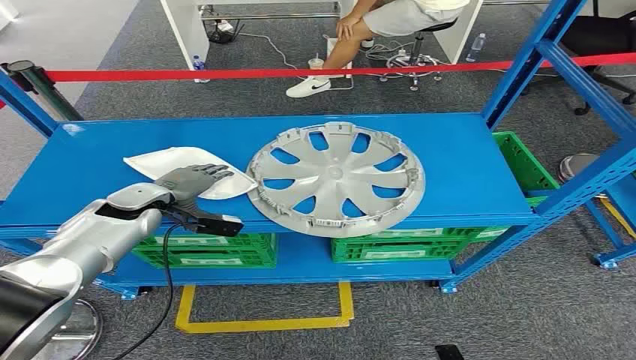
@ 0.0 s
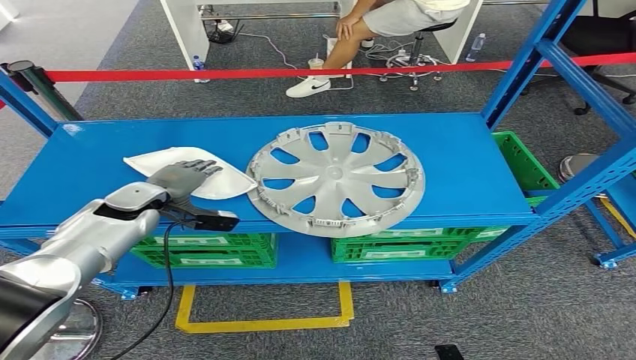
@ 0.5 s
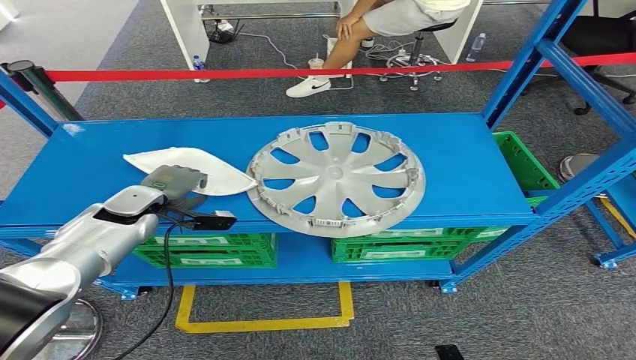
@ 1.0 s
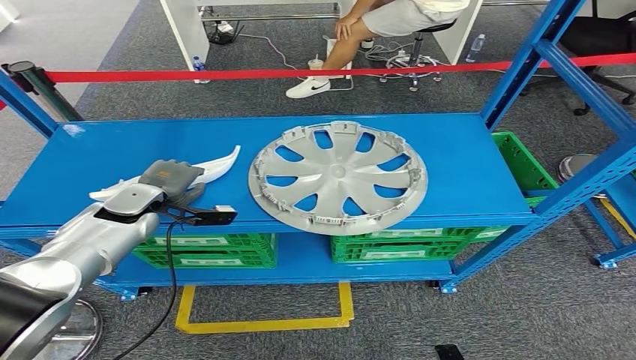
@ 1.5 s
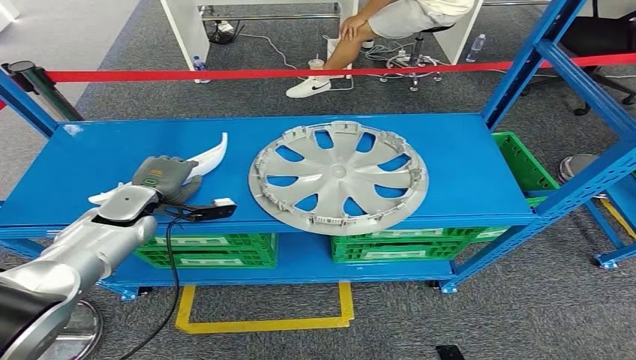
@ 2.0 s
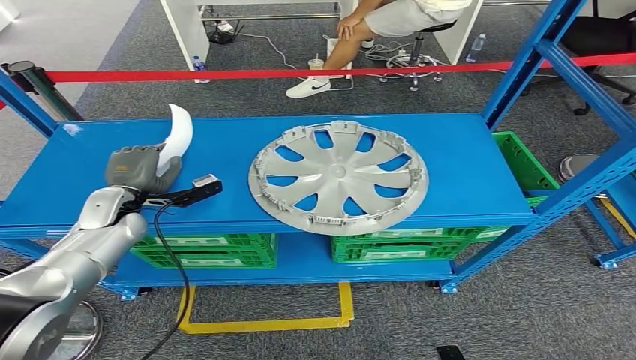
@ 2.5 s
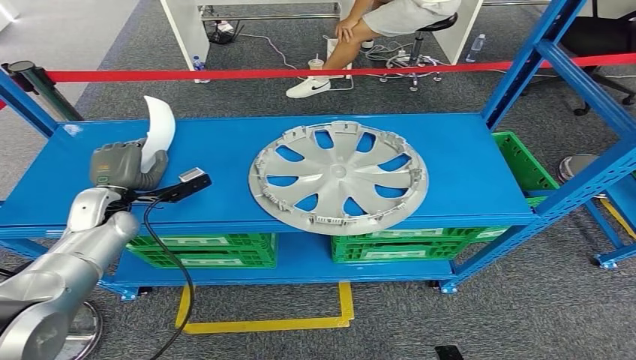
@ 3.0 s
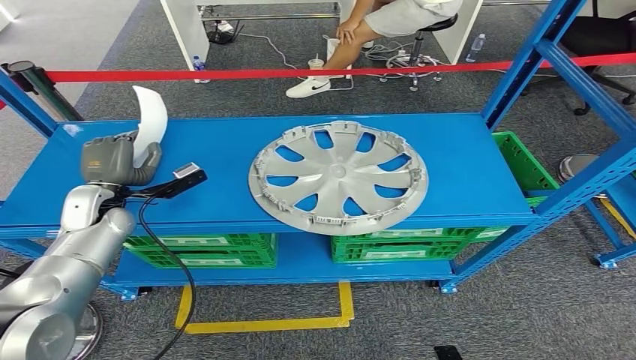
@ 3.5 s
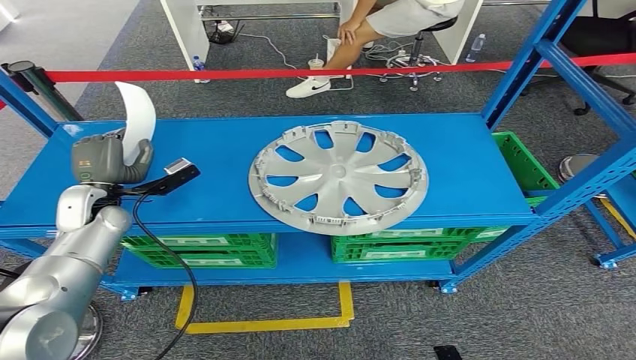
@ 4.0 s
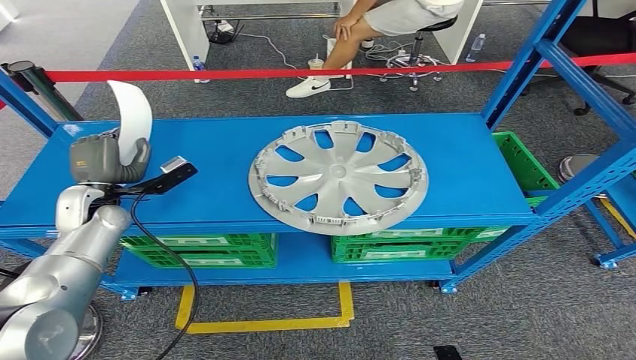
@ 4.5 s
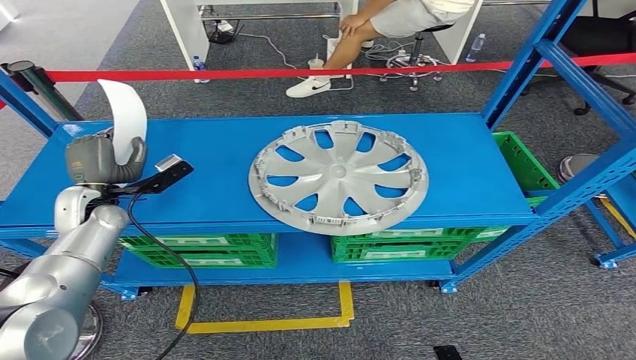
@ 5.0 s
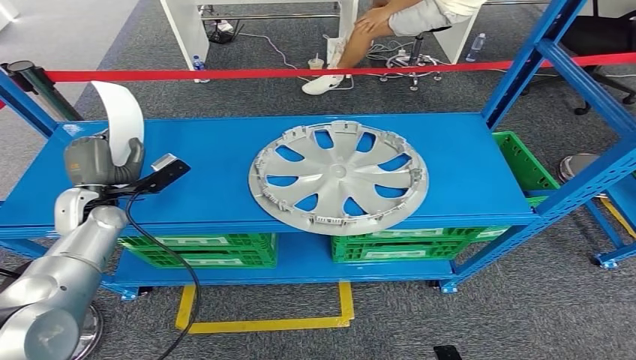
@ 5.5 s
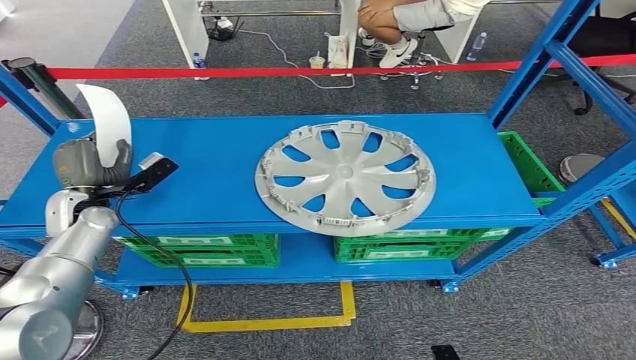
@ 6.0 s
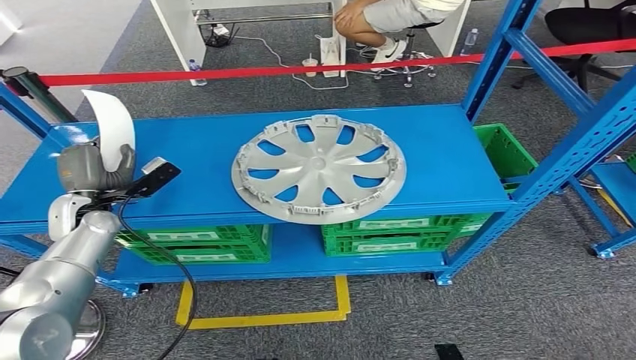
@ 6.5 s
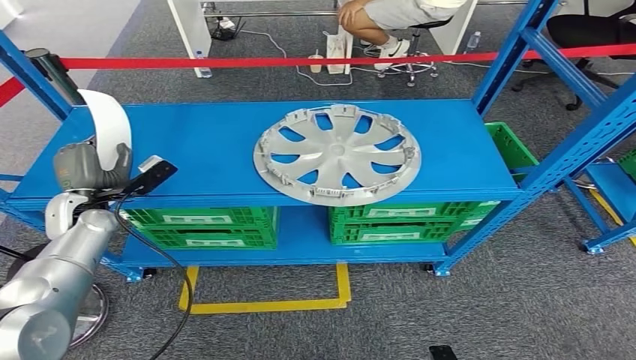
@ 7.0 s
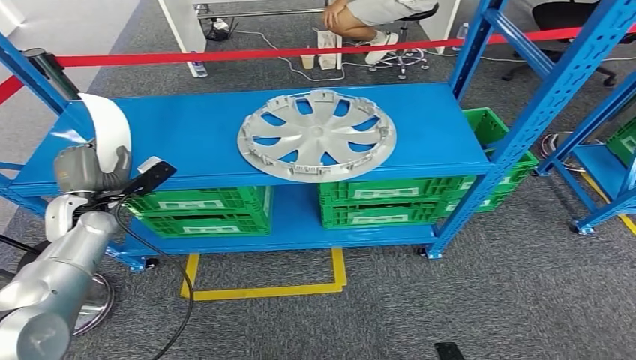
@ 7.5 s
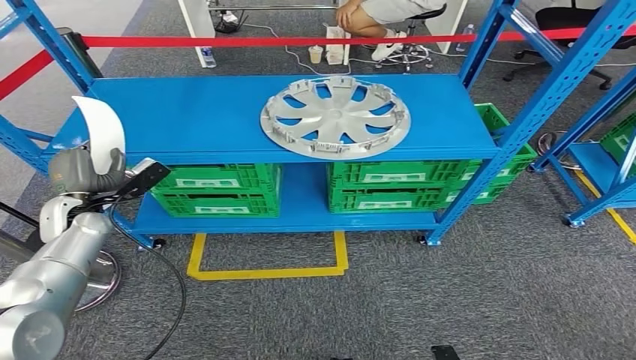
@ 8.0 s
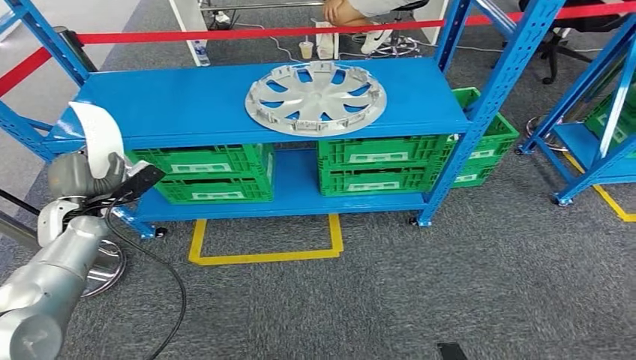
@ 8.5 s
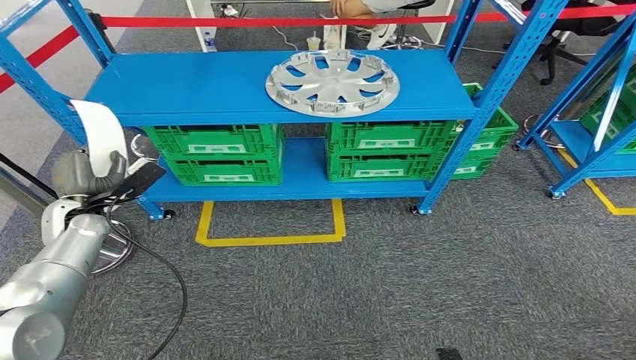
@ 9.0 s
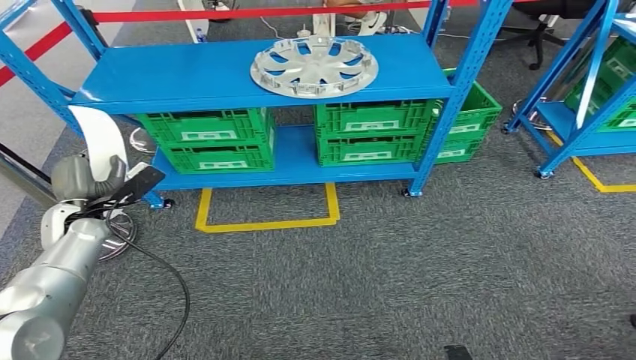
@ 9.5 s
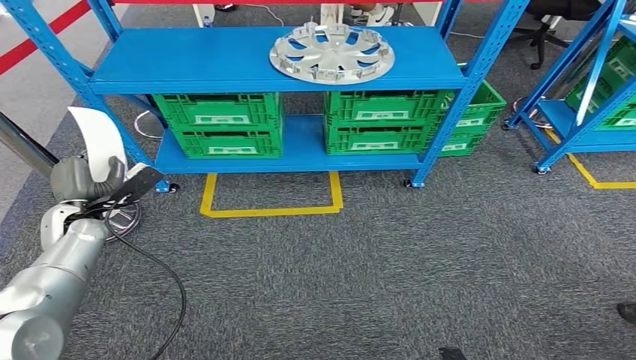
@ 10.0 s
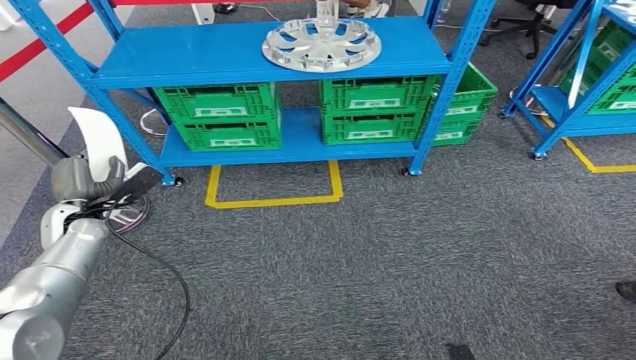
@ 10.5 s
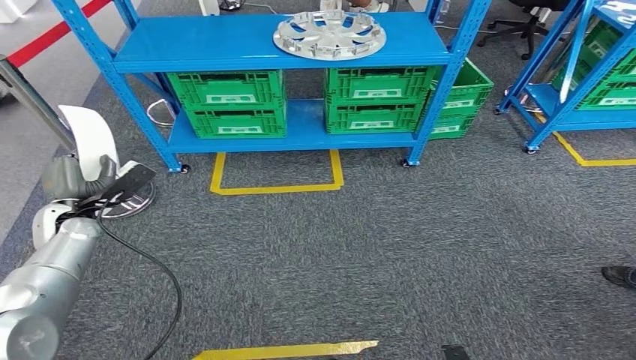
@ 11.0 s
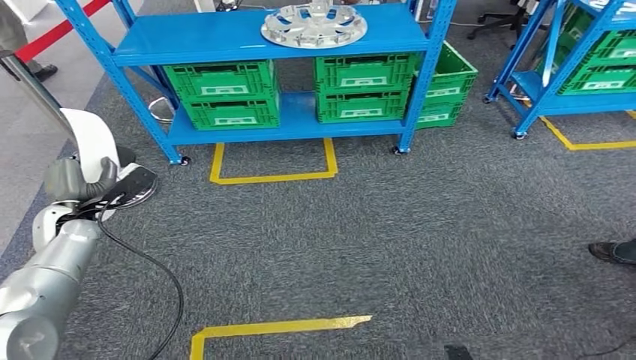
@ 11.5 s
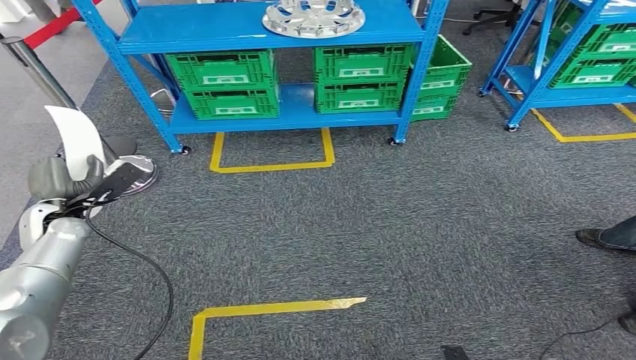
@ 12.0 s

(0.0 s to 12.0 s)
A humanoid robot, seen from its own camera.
Step, 0.0 s - 6.0 s: Pick up the small component from the shelf.
4.0 s - 6.0 s: The hands move only a little.

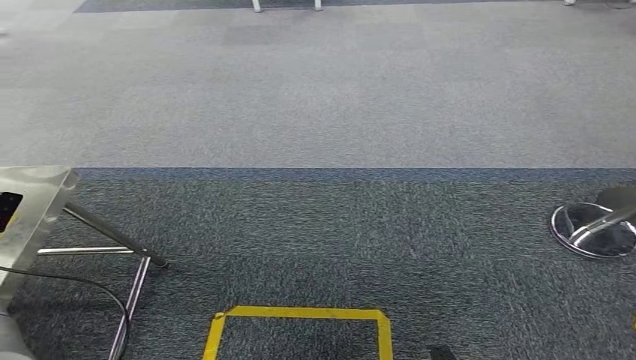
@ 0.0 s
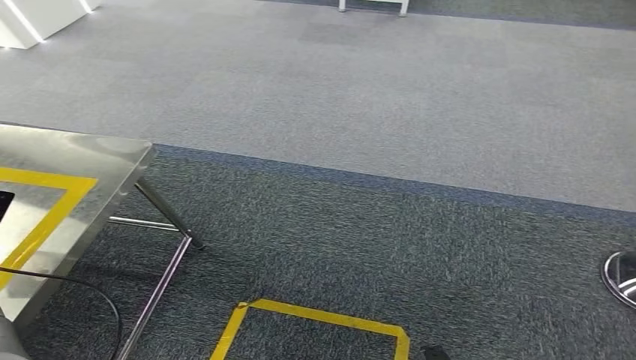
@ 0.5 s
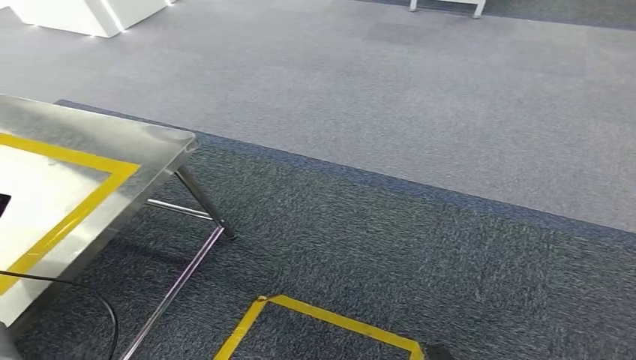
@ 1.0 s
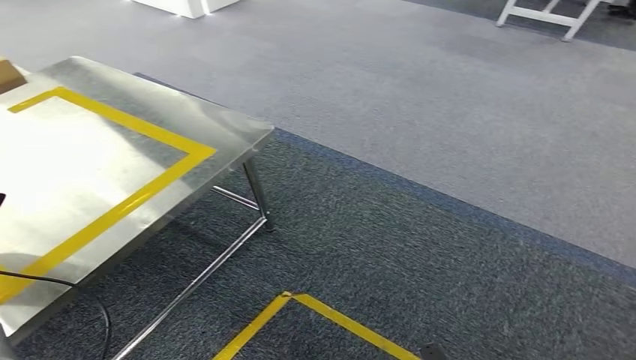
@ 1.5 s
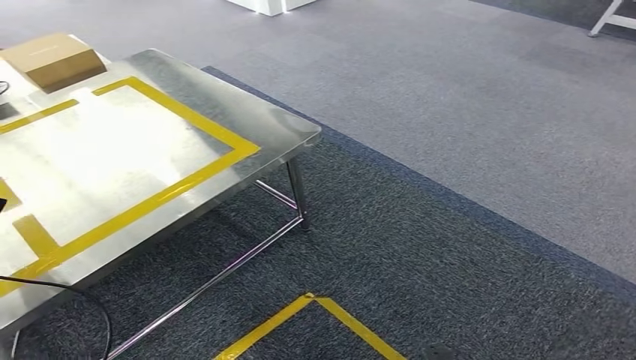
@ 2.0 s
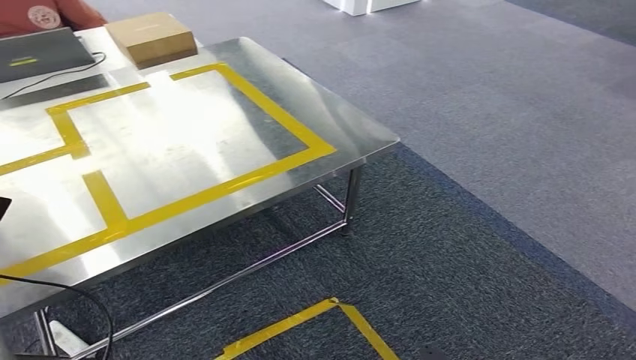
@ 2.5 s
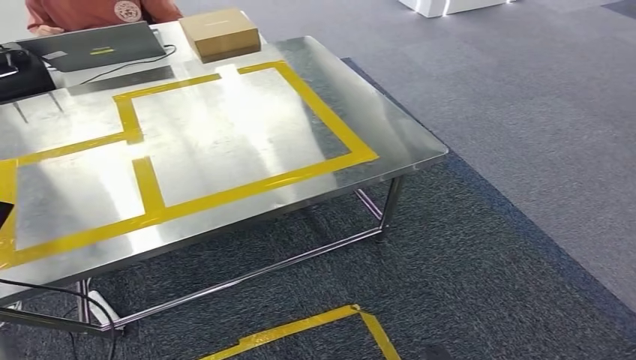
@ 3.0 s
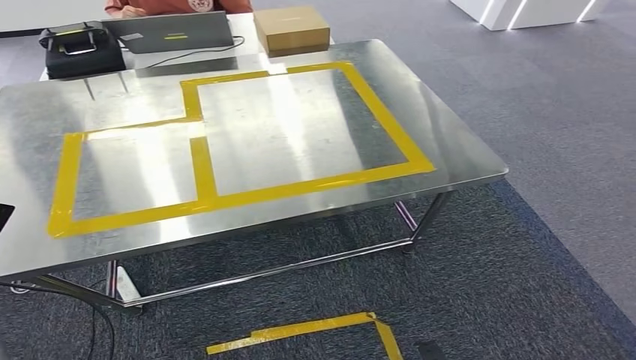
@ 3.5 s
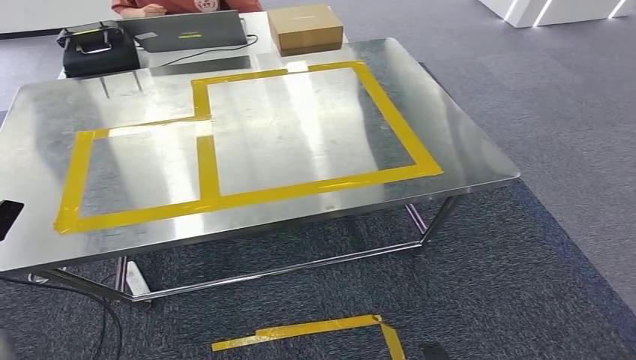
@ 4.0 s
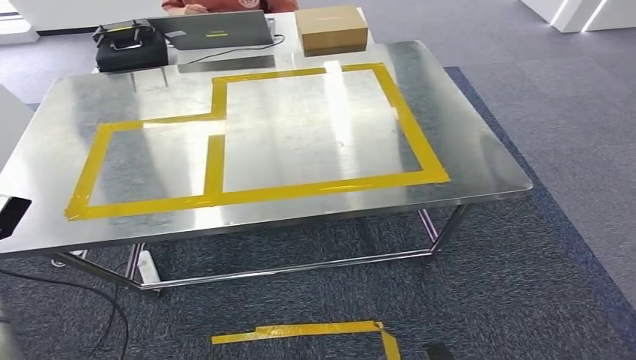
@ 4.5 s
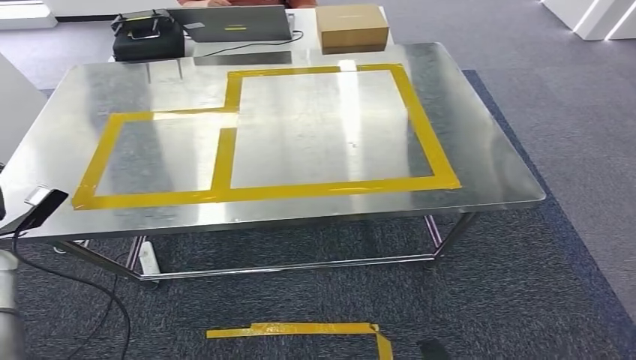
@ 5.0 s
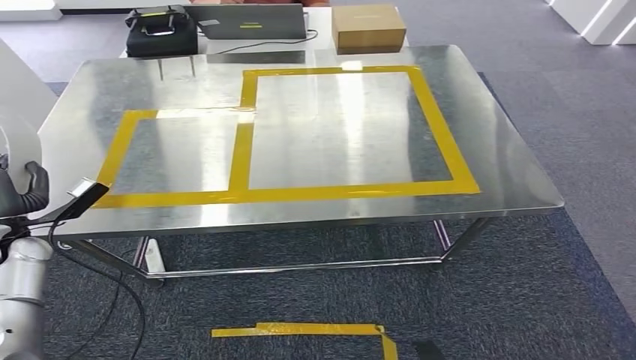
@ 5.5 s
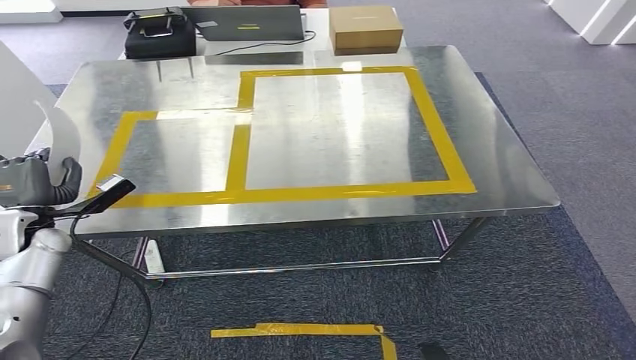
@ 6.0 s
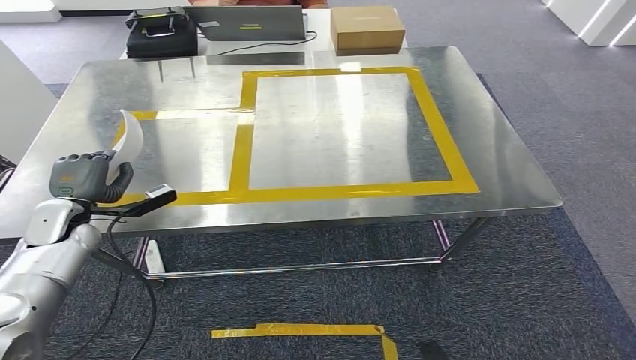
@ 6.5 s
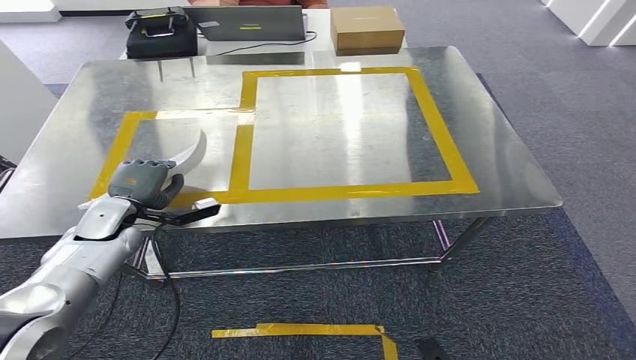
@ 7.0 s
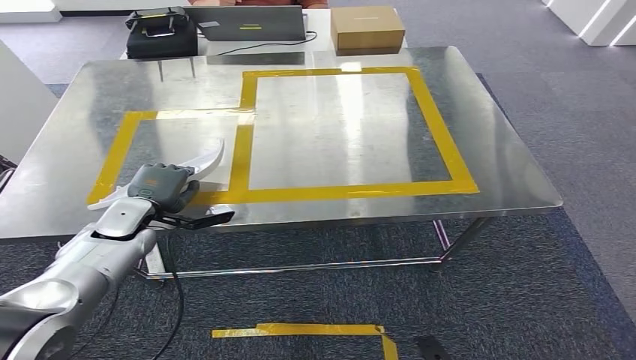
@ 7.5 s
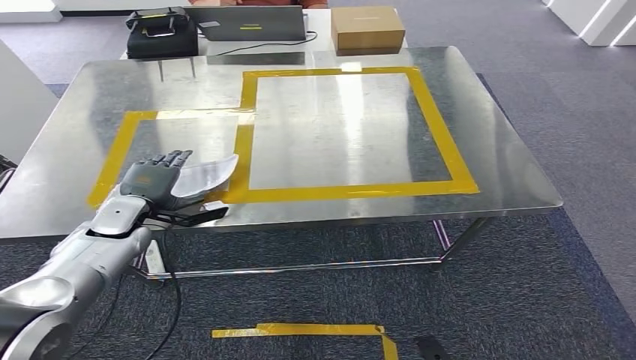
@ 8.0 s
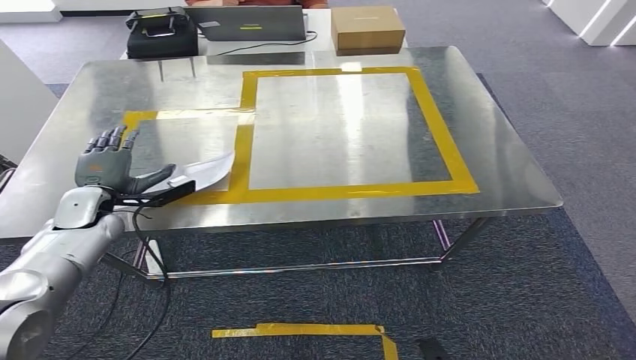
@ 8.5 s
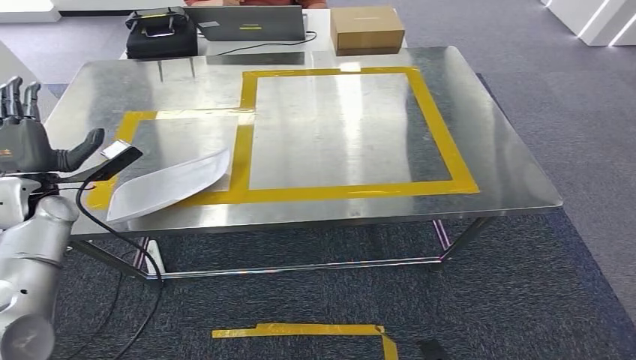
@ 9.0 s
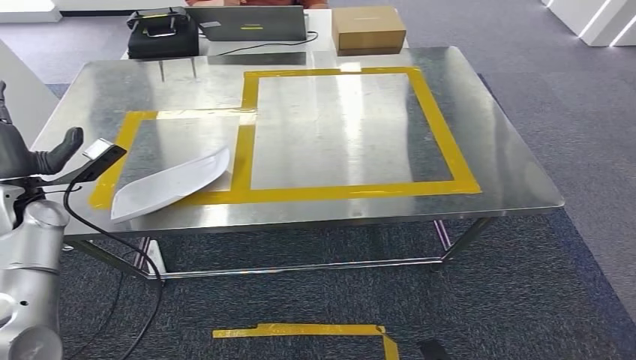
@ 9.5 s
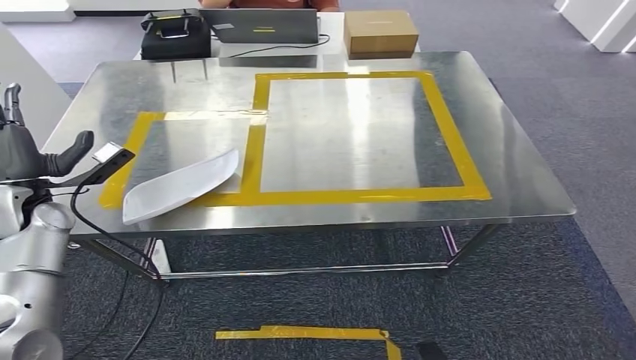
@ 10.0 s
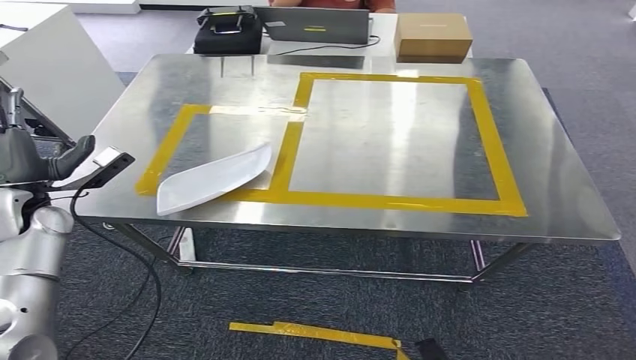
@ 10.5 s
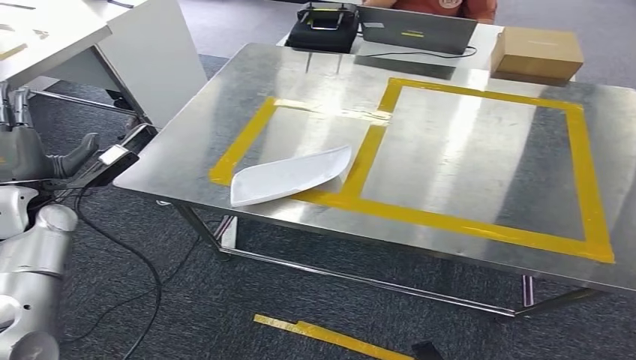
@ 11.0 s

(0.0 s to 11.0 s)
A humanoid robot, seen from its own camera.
Step, 0.0 s - 4.5 s: Move the small component to the workbench.
5.5 s - 7.5 s: The left hand moves to the right, about 15 cm.
7.5 s - 9.0 s: The left hand travels to the left and upward by roughly 15 cm.
